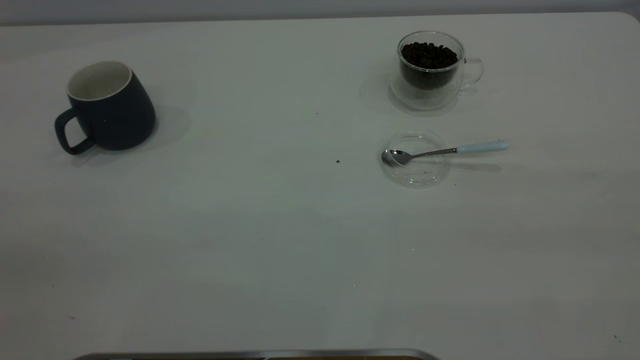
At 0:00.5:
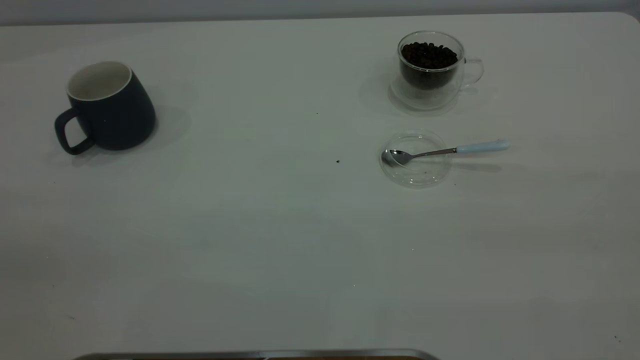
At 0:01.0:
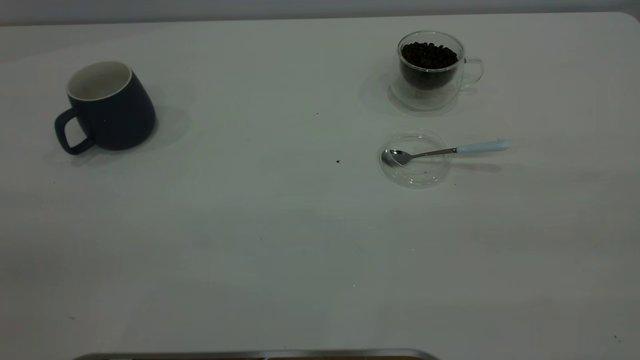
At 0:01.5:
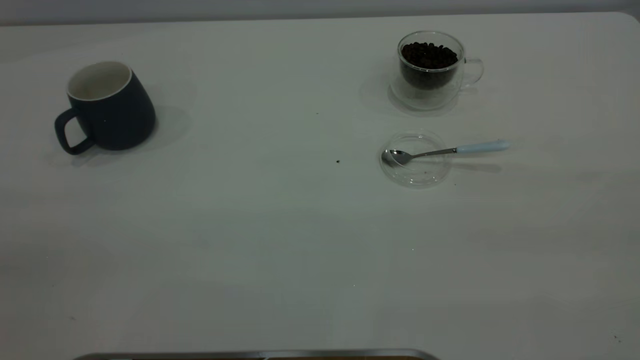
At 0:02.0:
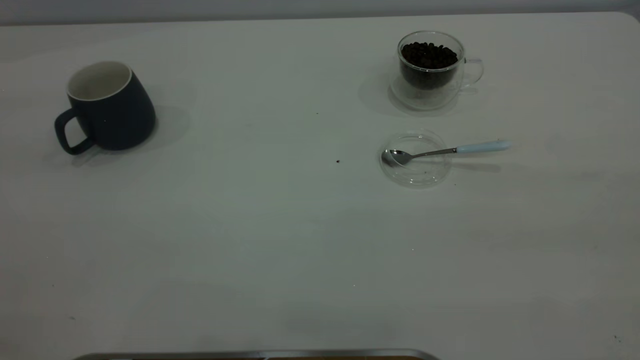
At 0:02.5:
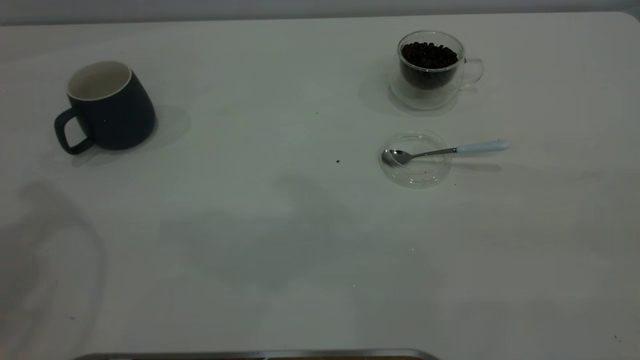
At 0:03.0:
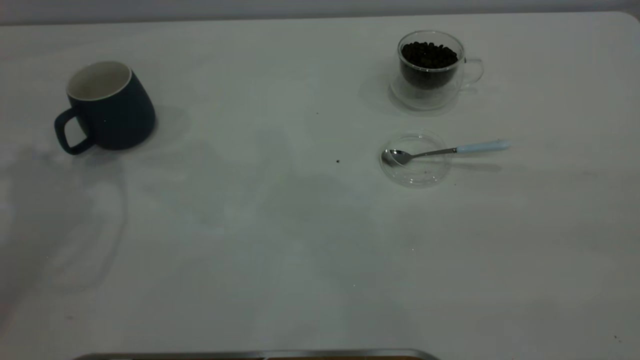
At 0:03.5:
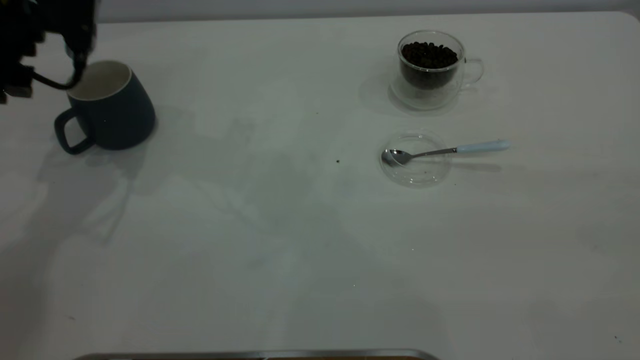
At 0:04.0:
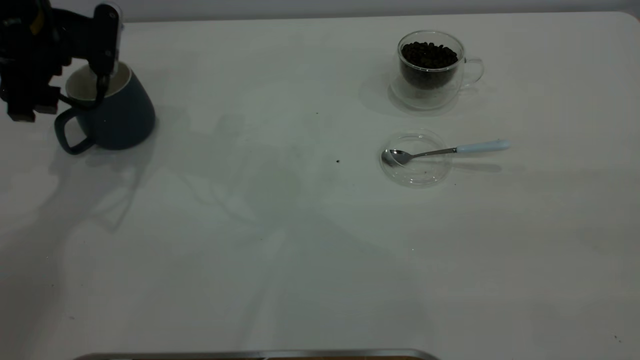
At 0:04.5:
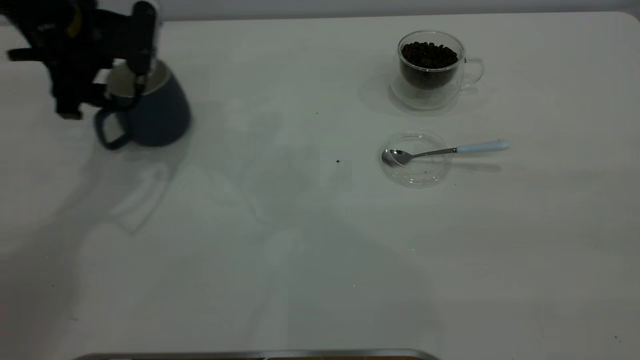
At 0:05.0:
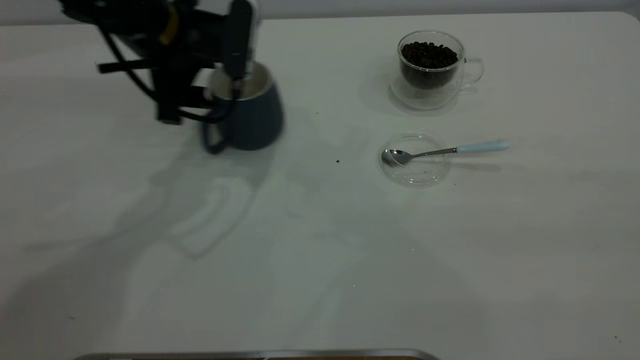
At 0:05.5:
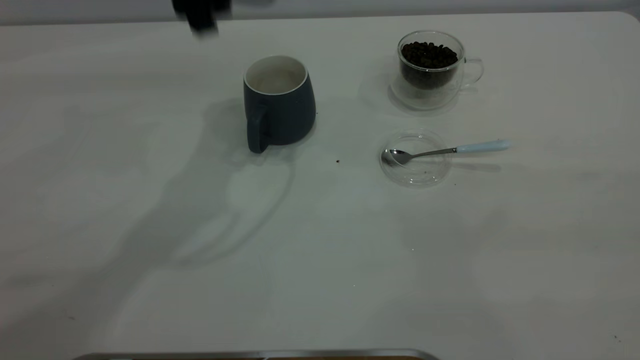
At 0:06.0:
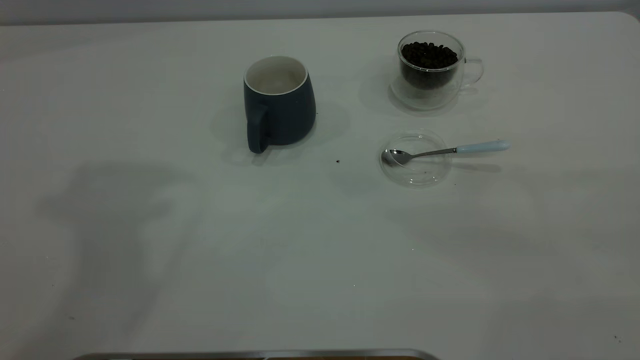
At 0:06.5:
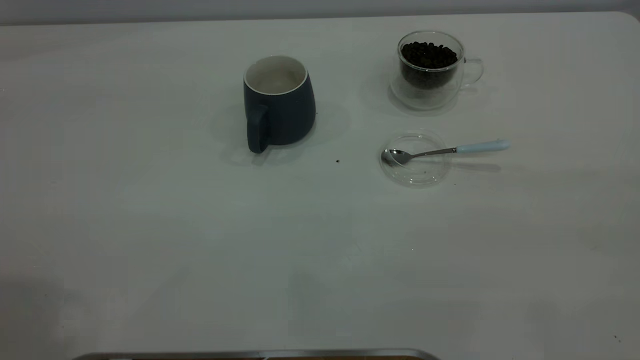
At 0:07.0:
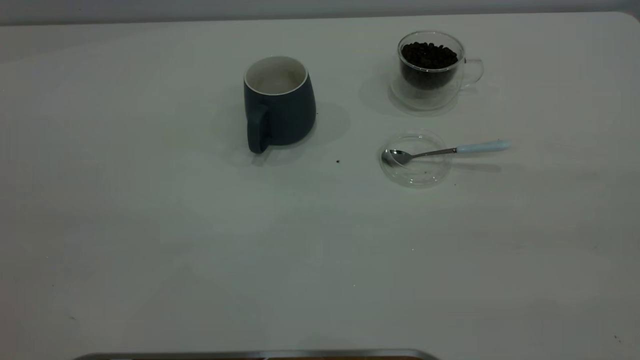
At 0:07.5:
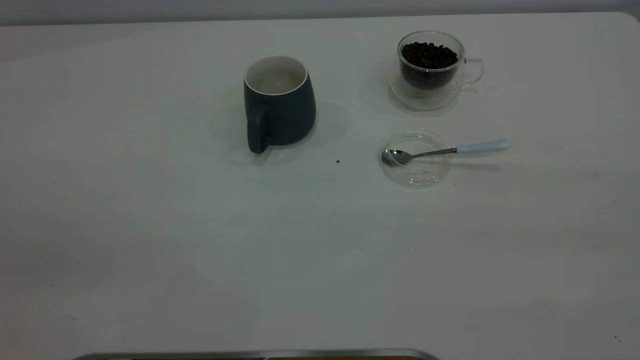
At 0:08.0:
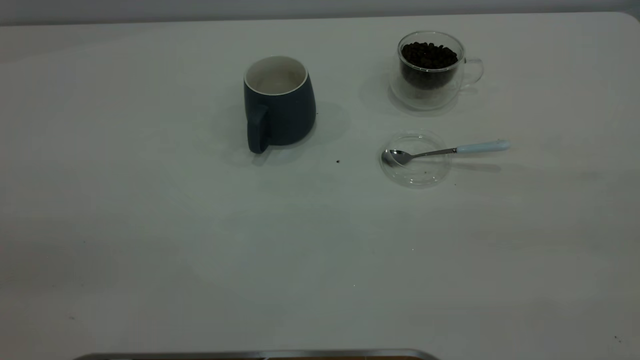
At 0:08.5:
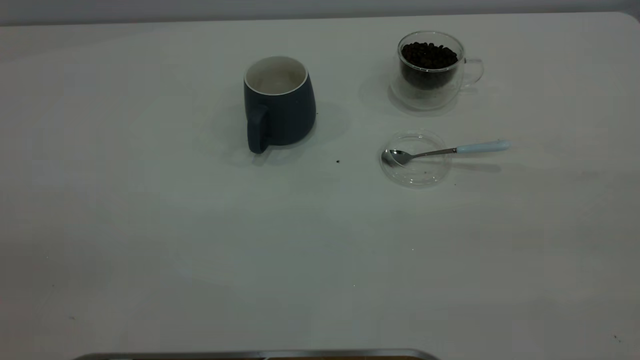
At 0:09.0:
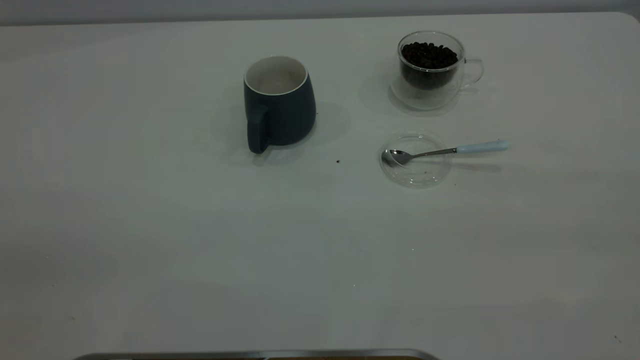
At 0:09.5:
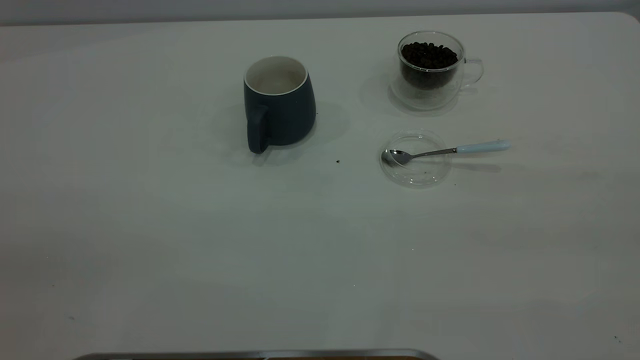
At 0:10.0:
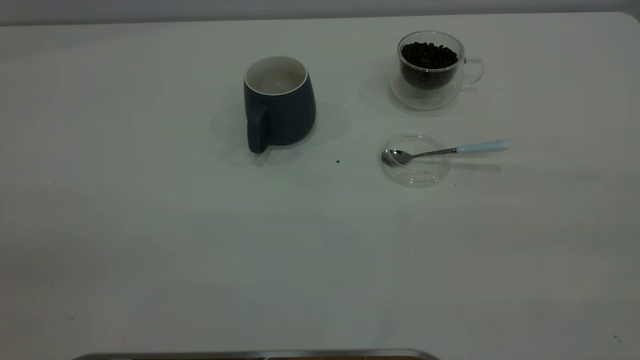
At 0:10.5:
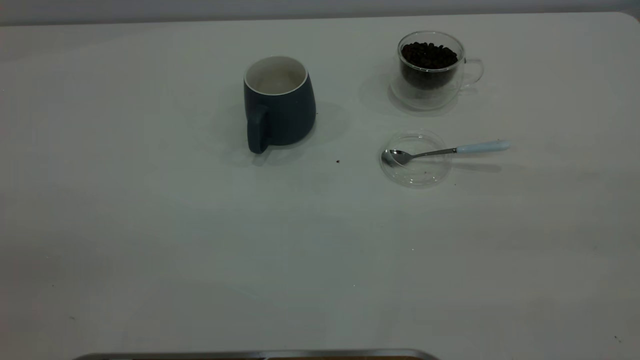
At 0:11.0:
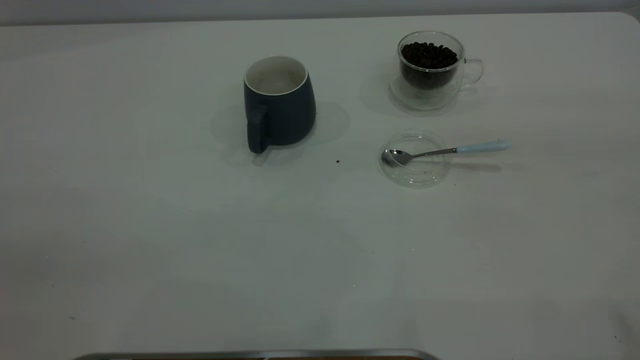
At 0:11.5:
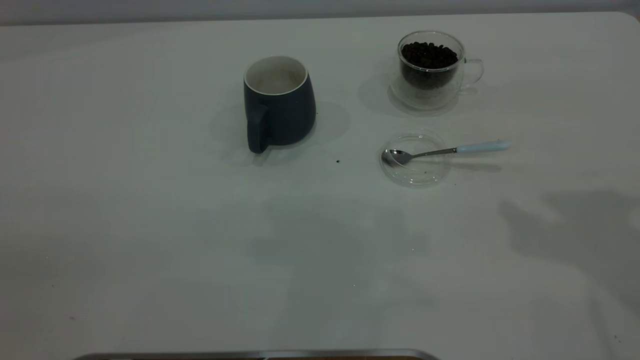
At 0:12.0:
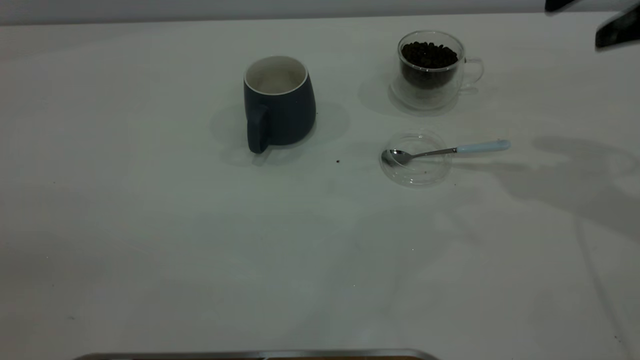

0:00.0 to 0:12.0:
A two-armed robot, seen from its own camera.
Task of the whole recording: the left gripper place the grey cup in the center of the table, the right gripper take the blue spoon from the cup lid and scoop out the coffee beans from the coffee cup and put them into the grey cup, the right gripper put the spoon back into the cup lid.
Step, 0:00.0 to 0:05.0: Move the cup to the center of view.
0:02.0 to 0:04.0: The left gripper heads forward and downward, covering about 40 cm.
0:04.0 to 0:06.0: The left gripper is displaced upward and backward by approximately 35 cm.
0:10.0 to 0:12.0: The right gripper shifts about 35 cm forward, and opens up.

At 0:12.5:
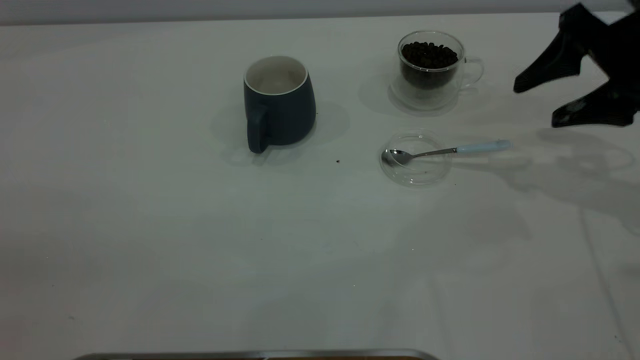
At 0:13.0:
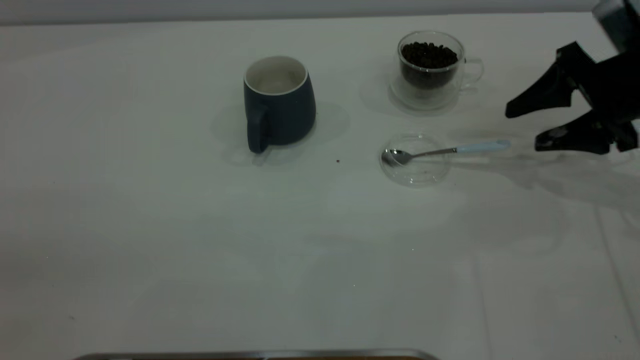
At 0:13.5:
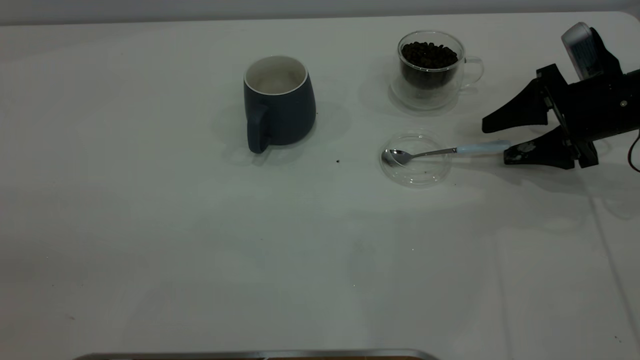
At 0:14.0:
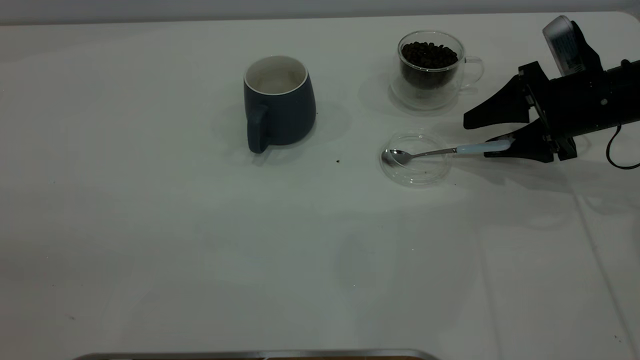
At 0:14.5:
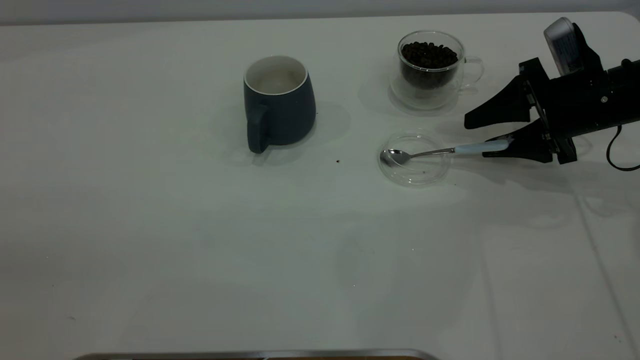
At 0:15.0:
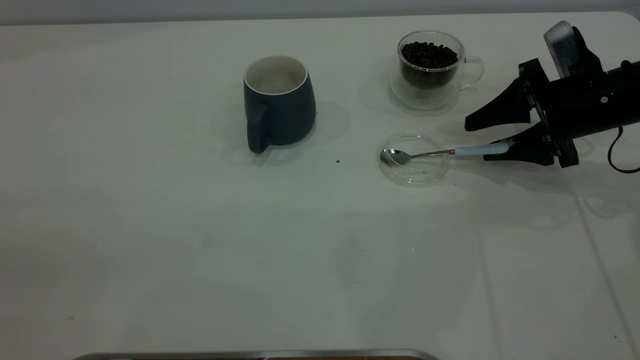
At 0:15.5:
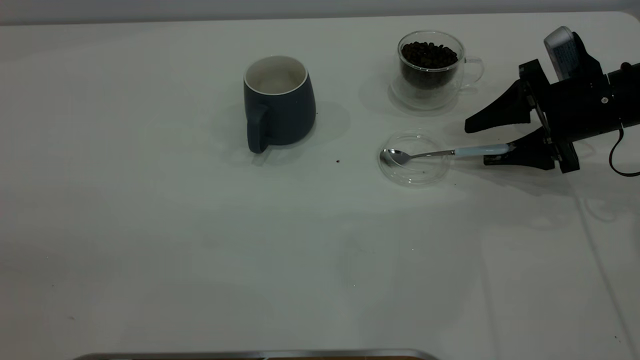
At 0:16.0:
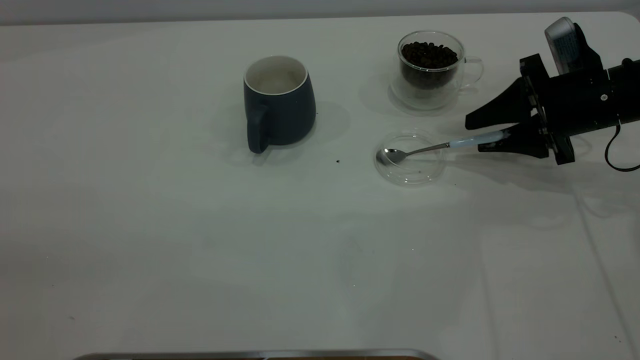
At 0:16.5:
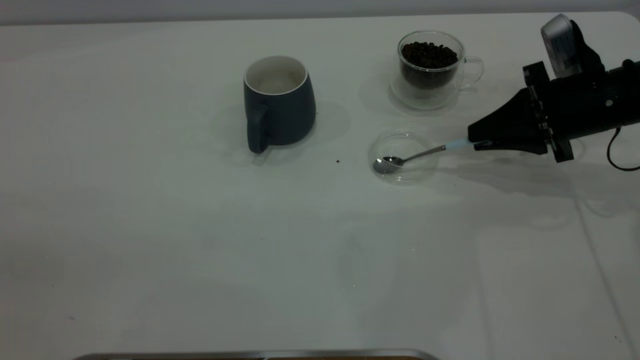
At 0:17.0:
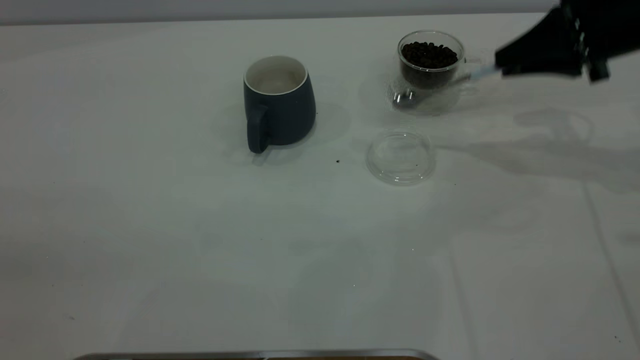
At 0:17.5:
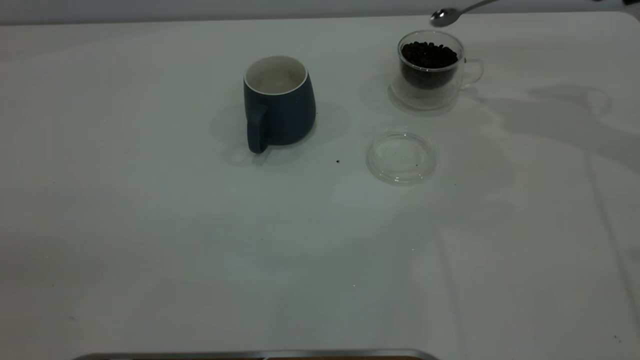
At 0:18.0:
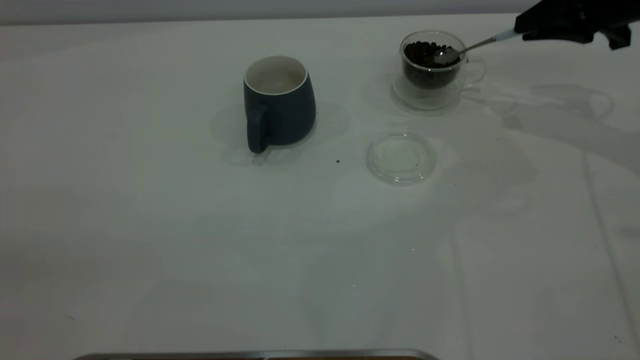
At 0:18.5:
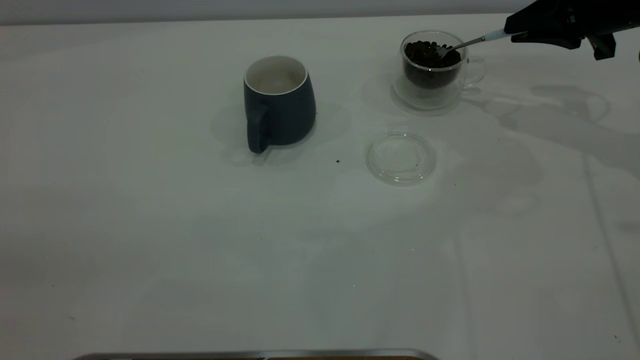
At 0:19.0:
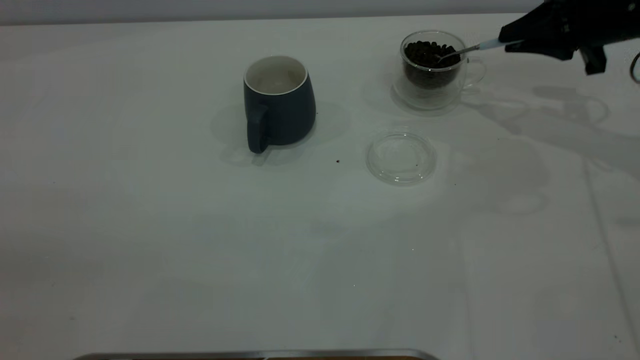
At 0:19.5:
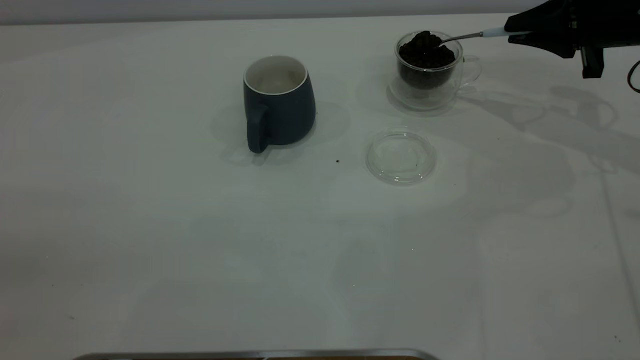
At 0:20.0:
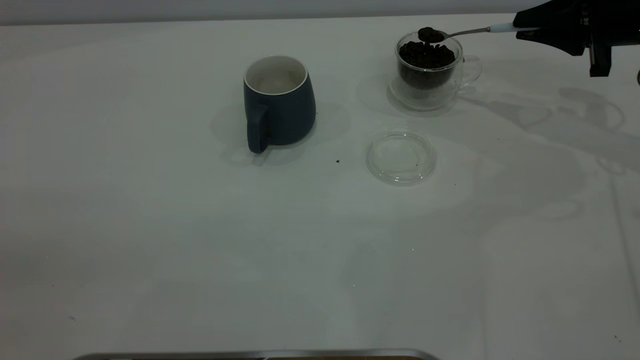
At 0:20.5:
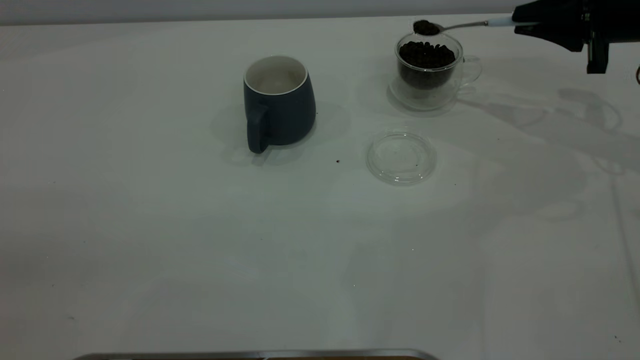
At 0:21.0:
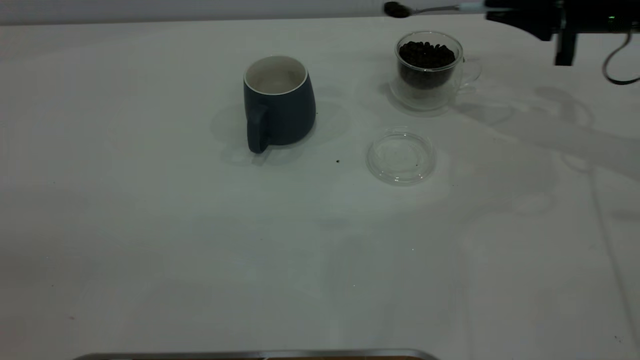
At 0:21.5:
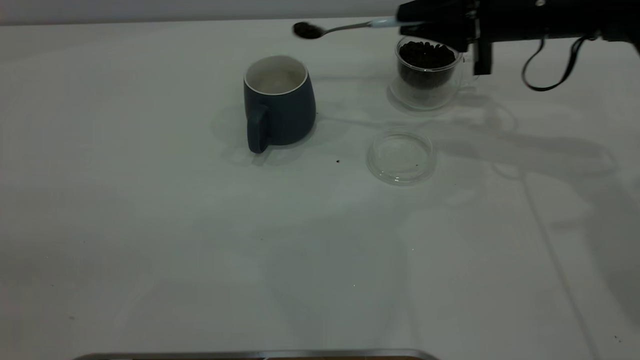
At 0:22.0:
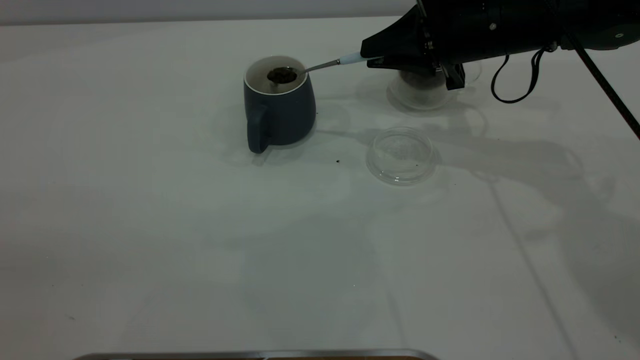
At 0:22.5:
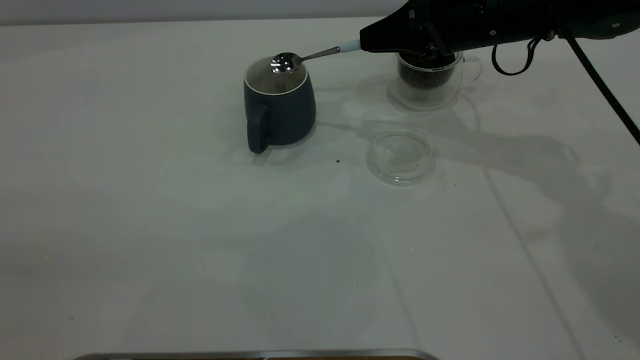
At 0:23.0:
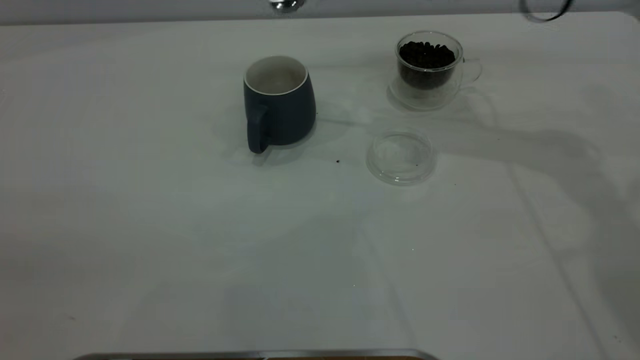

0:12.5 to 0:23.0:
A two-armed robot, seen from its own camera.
Task of the whole recording: the left gripper place the grey cup in the center of the table, the right gripper take the blue spoon from the cup lid and scoop out the coffee beans from the coffee cup and put them into the grey cup, the right gripper put the spoon back into the cup lid.
Step, 0:12.5 to 0:16.5: Pick up the spoon.
Step, 0:17.0 to 0:22.5: Scoop a spoonful of beans into the cup.
0:12.5 to 0:14.5: The right gripper is displaced downward by roughly 10 cm.
0:14.5 to 0:16.5: The right gripper closes up.
0:16.5 to 0:19.0: The right gripper shifts some 10 cm forward and upward.
0:19.0 to 0:21.0: The grippers stay close to where they were, moving slightly.
0:21.0 to 0:23.0: The right gripper heads to the left and upward, covering some 10 cm.
